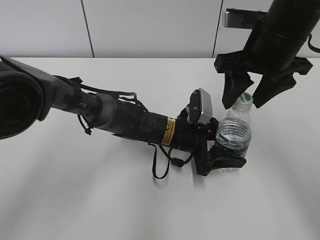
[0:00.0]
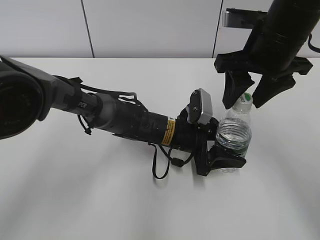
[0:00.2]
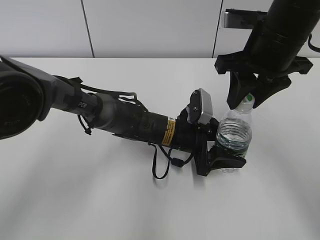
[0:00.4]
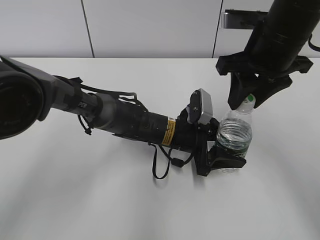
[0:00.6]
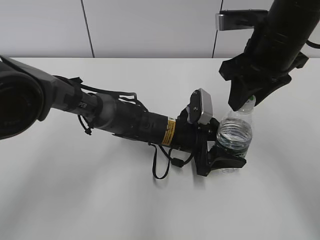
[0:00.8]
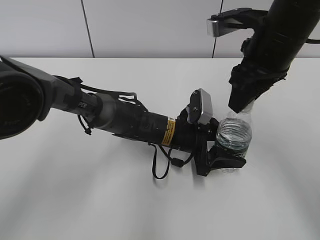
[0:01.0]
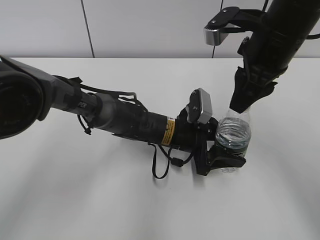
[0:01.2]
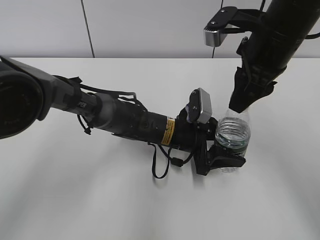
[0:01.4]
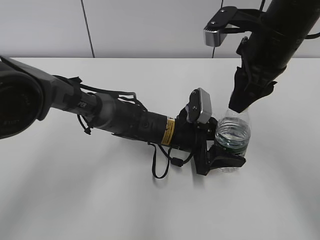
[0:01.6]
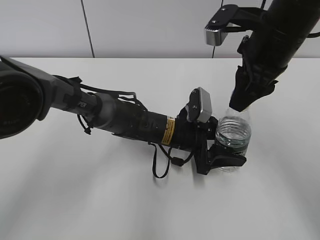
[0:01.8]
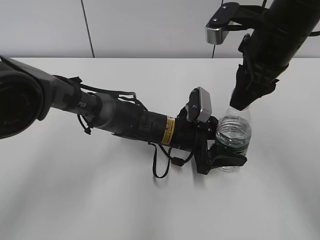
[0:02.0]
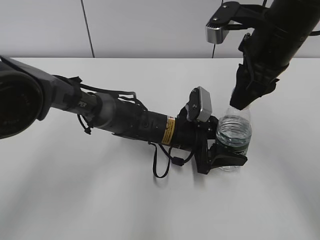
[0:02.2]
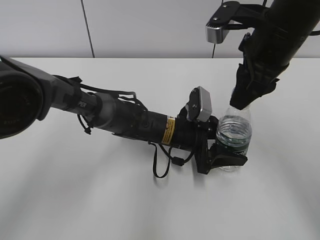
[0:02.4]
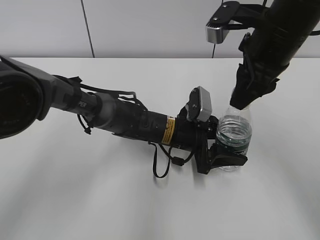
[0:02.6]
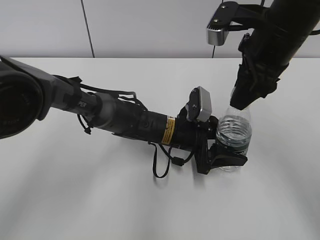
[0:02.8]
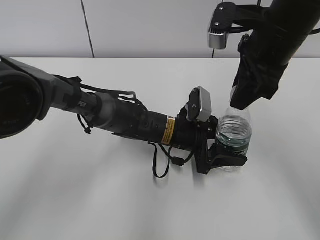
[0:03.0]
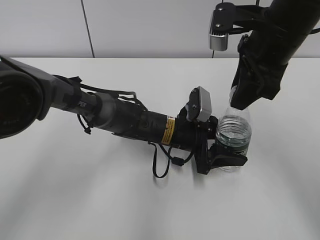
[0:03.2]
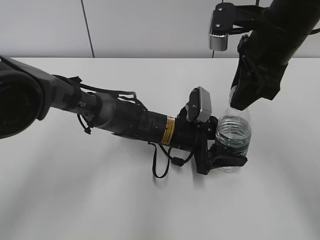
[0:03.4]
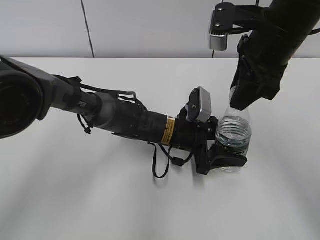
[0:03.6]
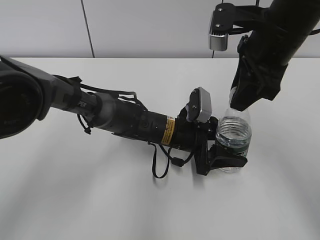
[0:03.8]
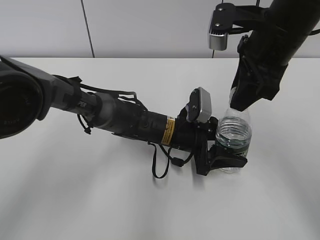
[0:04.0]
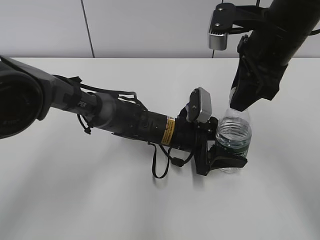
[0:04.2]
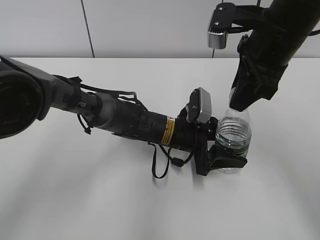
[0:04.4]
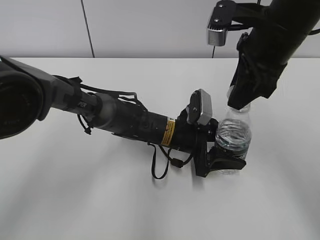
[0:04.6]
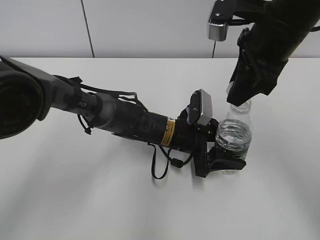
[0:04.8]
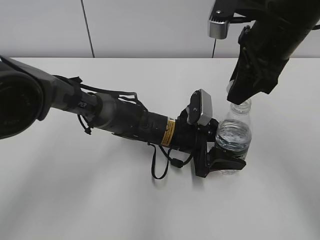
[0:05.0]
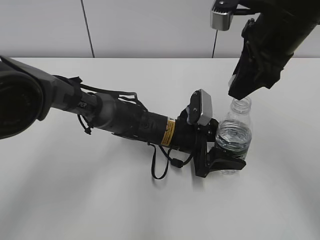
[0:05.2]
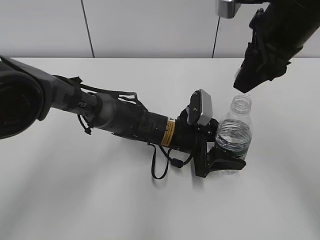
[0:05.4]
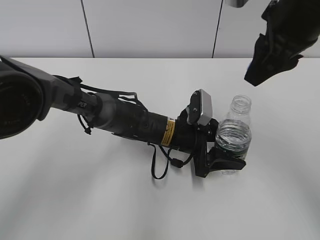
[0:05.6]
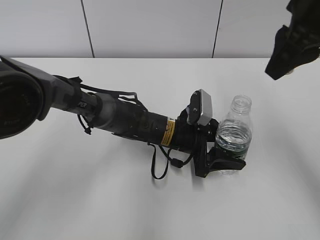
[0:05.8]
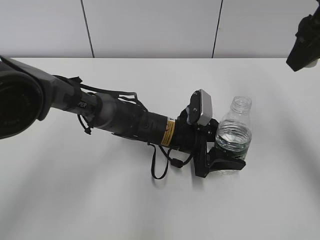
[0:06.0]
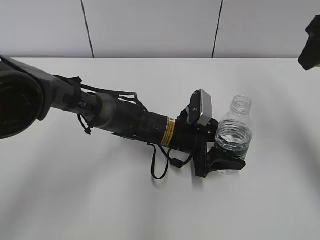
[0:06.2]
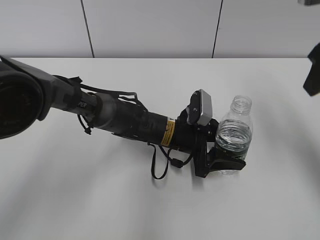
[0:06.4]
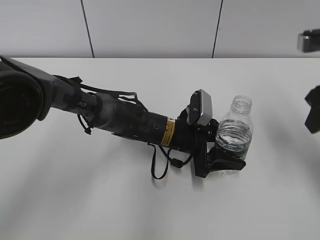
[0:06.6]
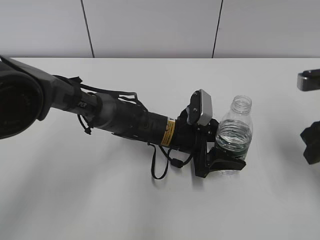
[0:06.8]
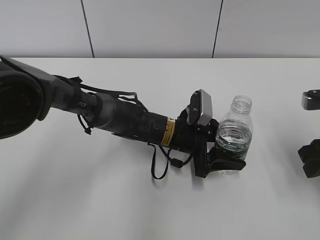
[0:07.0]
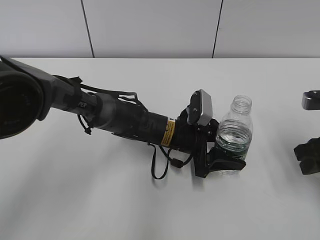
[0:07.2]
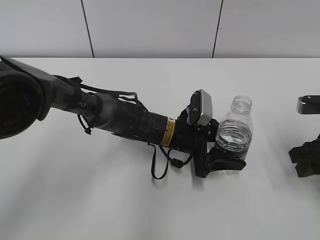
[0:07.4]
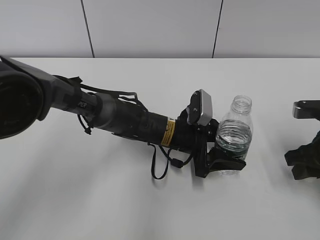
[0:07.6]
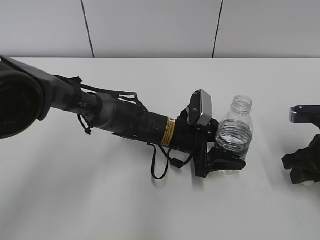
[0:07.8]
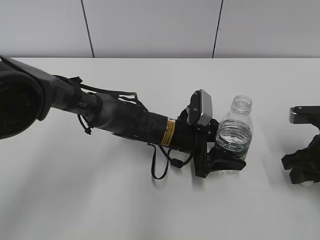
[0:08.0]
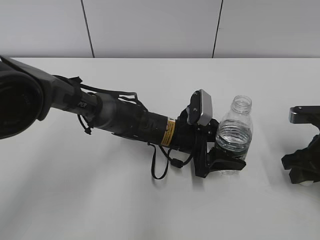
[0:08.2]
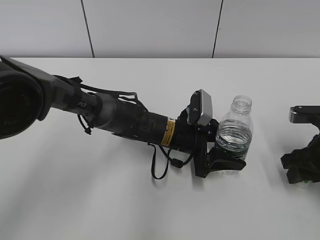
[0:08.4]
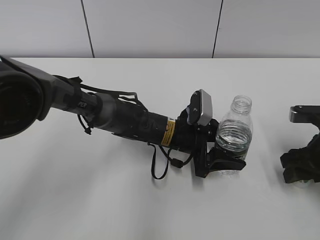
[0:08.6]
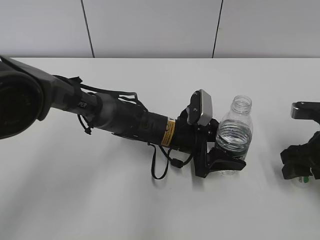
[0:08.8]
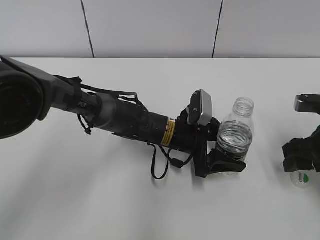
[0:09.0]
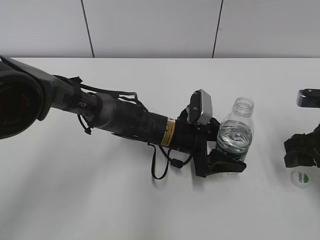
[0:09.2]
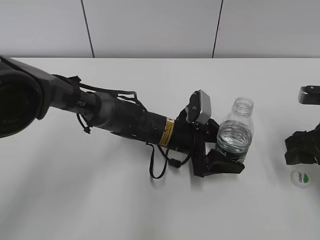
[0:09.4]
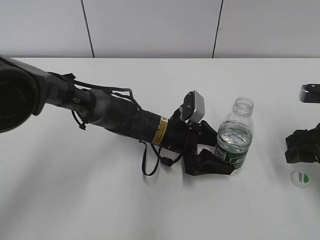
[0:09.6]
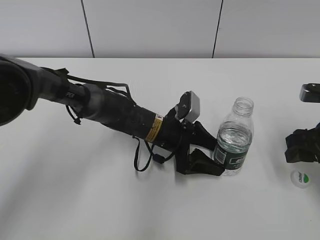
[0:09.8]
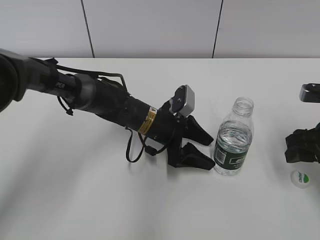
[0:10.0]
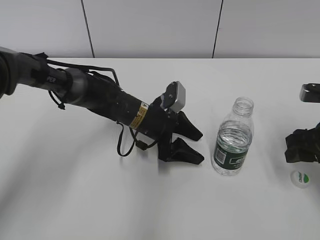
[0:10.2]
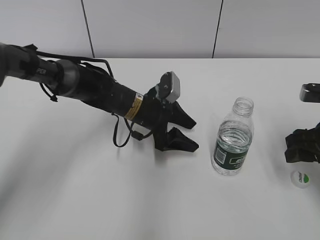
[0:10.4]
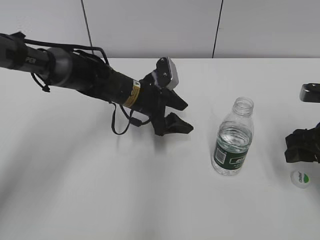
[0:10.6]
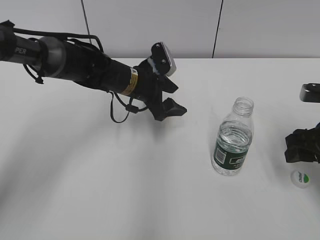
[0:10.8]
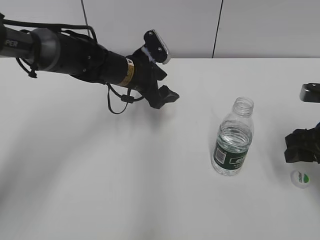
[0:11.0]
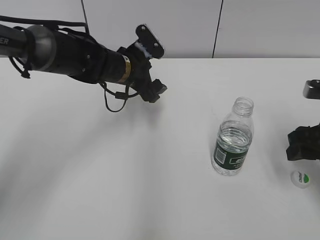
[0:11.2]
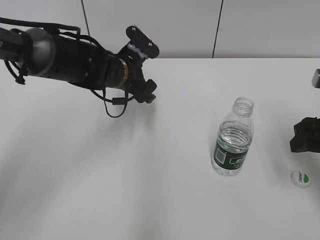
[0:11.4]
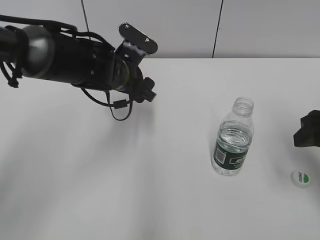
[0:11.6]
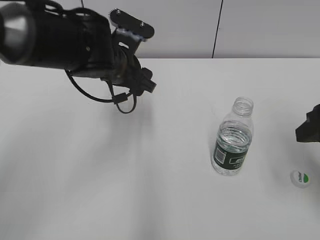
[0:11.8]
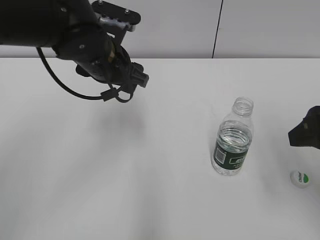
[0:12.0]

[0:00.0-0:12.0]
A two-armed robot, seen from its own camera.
Step, 0:00.0 to 0:04.8: Secure the C'estbon with the left hand.
Step, 0:05.0 to 0:08.4: Place the bottle cap on the table with the right hand.
0:00.0 to 0:01.6: The right gripper closes.
0:01.6 to 0:03.0: The grippers move only a little.
0:03.0 to 0:04.4: The two grippers keep their place.
0:04.4 to 0:06.0: The right gripper heads to the right and upward, covering some 10 cm.
0:06.0 to 0:07.6: The right gripper shifts about 20 cm downward.
0:07.6 to 0:09.0: The right gripper opens.
0:09.0 to 0:10.4: The left gripper heads to the left, covering approximately 5 cm.
0:10.4 to 0:12.0: The left gripper heads upward, covering some 15 cm, while the right gripper travels upward and backward by about 10 cm.

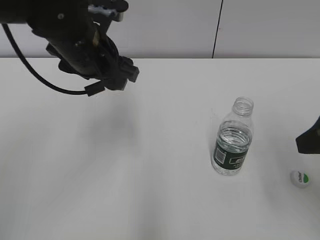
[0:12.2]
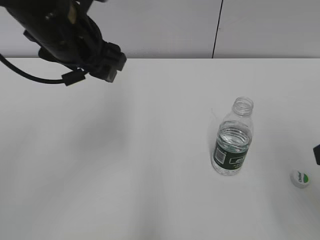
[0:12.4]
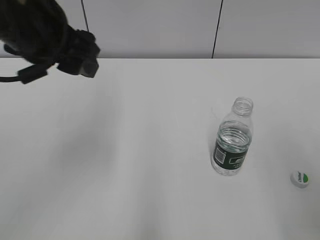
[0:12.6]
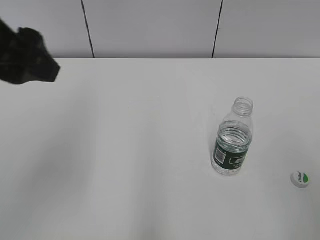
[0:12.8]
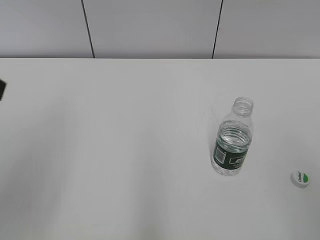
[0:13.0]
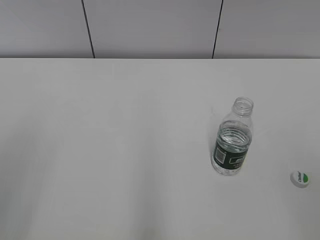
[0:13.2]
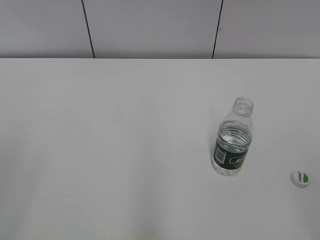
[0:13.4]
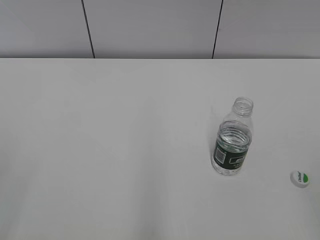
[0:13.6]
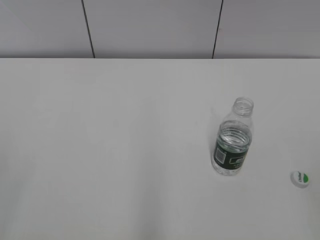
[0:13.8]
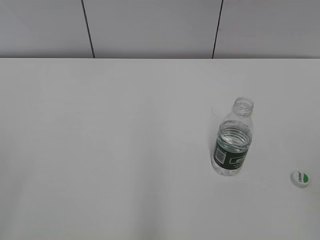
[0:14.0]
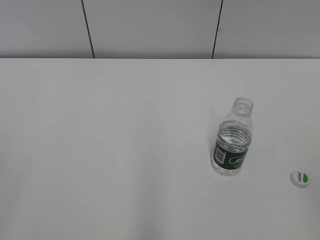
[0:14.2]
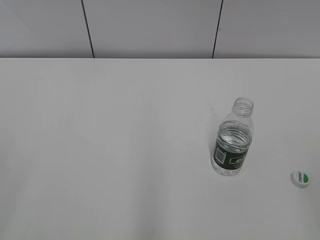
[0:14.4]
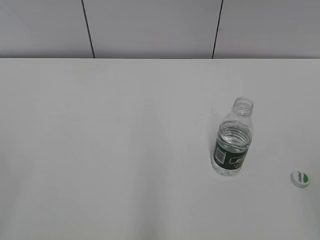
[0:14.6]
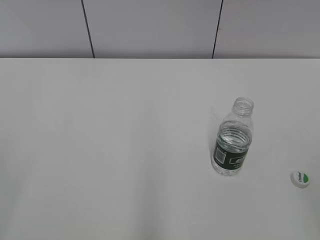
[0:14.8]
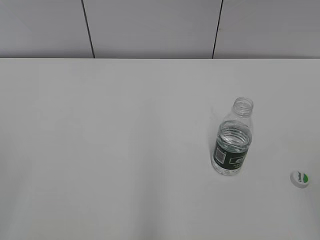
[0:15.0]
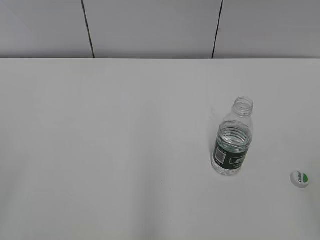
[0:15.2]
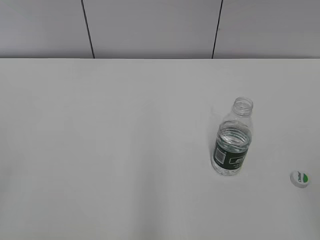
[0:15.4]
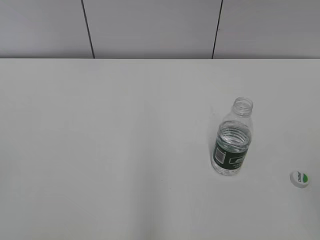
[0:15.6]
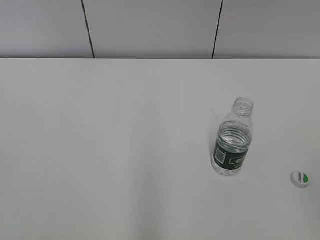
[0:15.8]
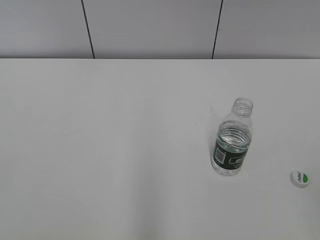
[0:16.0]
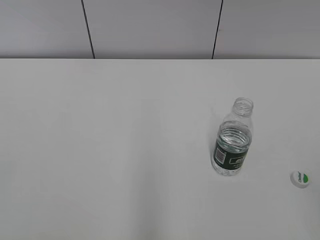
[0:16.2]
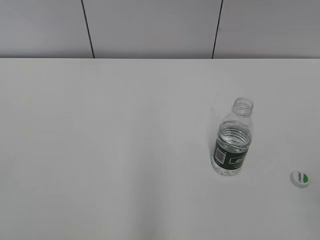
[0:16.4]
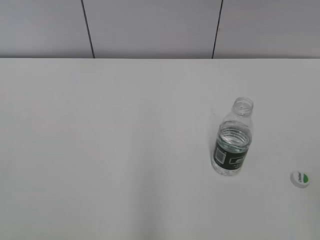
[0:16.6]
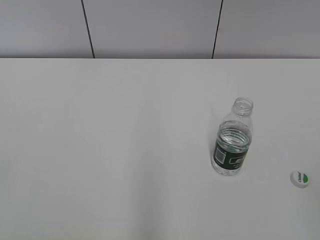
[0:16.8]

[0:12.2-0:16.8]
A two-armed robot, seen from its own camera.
0:12.2 to 0:13.8: The left gripper goes approximately 35 cm backward and to the left. The right gripper is displaced backward by roughly 20 cm.
